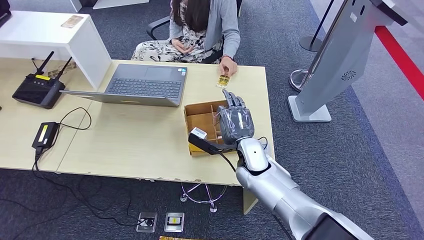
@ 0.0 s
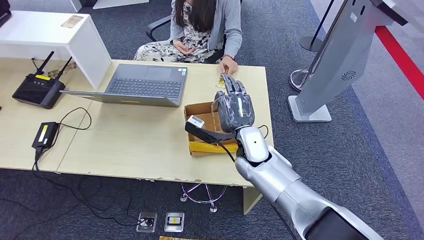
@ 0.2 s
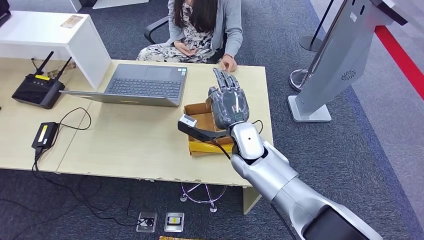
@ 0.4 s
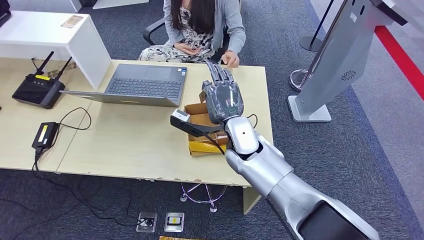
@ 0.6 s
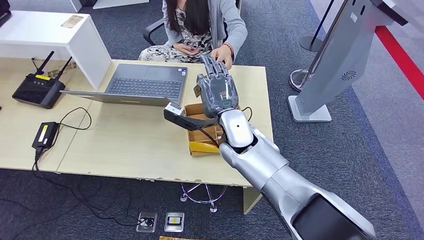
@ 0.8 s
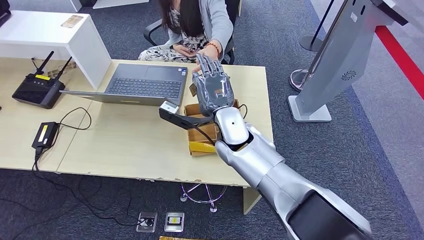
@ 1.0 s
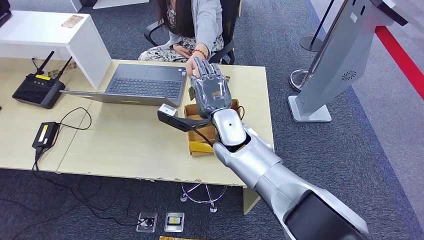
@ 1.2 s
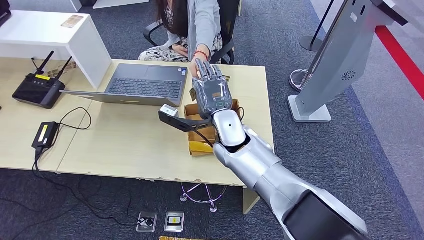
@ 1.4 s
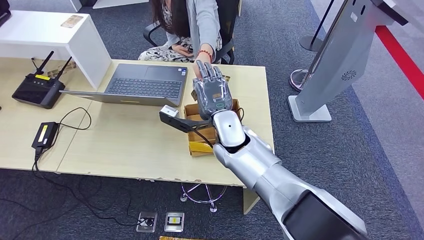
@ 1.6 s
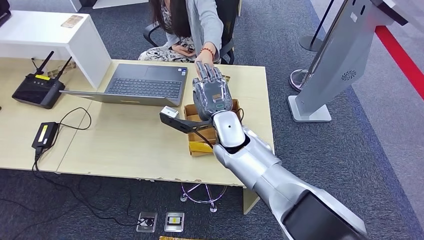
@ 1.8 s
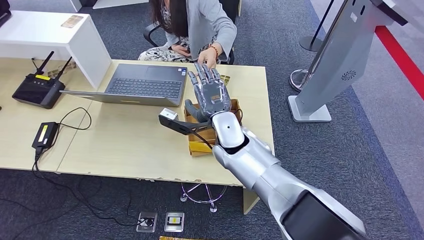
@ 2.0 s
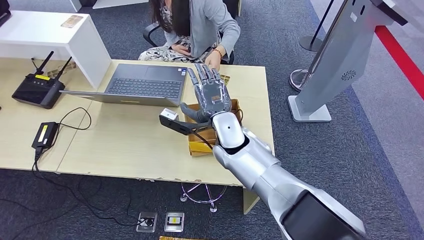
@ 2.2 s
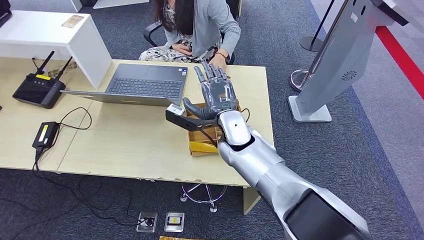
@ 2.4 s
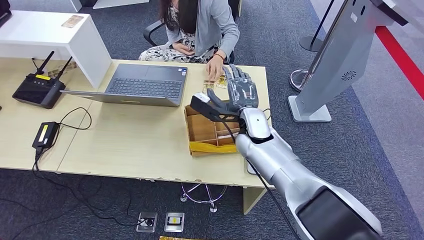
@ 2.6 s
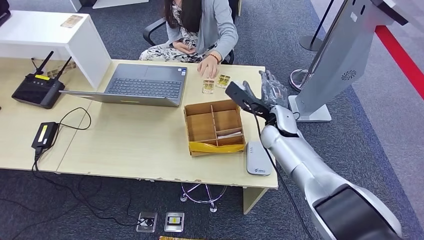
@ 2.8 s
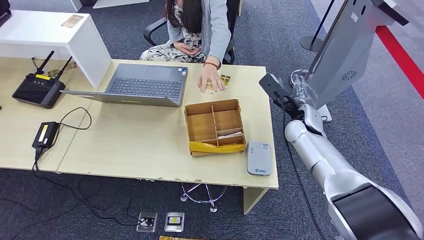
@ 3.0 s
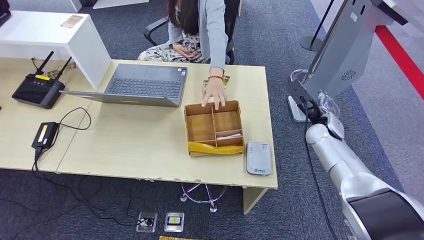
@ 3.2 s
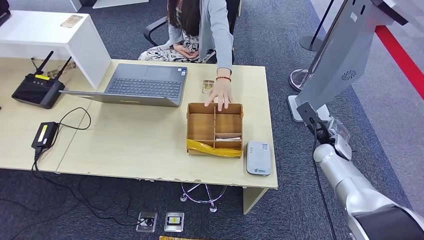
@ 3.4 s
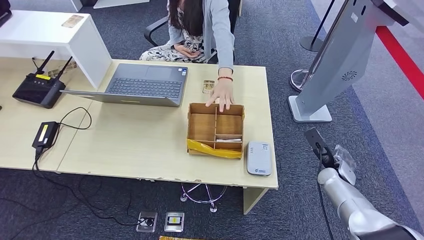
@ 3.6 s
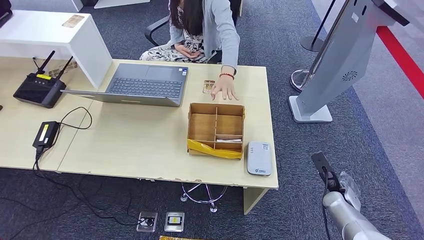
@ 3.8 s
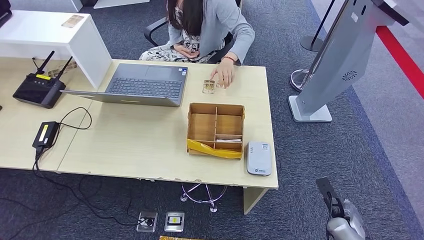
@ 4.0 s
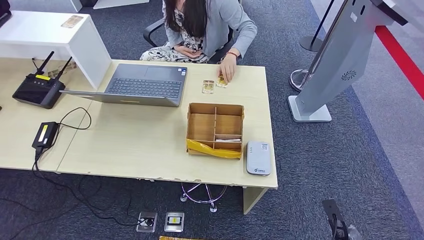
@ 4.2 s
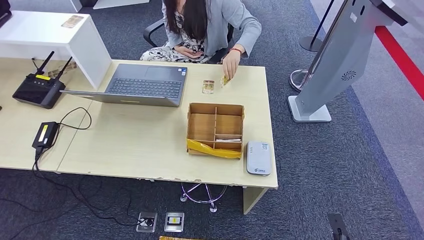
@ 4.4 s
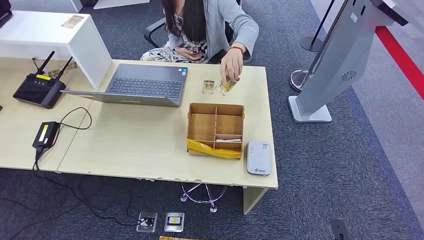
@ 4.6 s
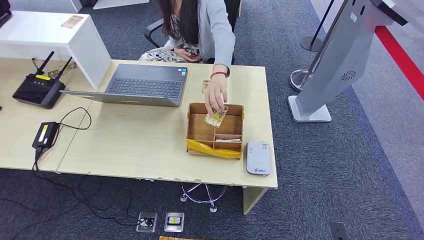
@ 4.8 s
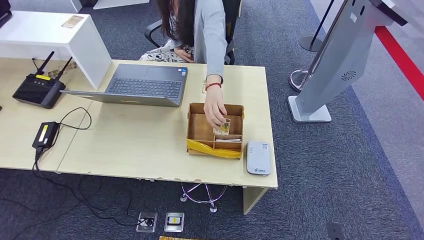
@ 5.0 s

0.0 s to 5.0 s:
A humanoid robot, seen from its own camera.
Step, 1.2 to 5.0 s: Hand the room key to the person.
0.0 to 1.6 s: The right hand is displaced upward and to the left by some 10 cm.
1.6 to 3.4 s: The right hand moves to the right, some 30 cm.
3.4 to 5.0 s: The right hand heads backward and downward, covering some 35 cm.
